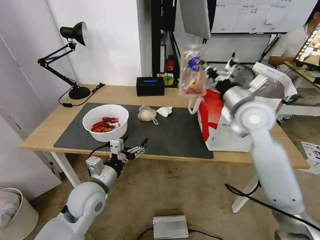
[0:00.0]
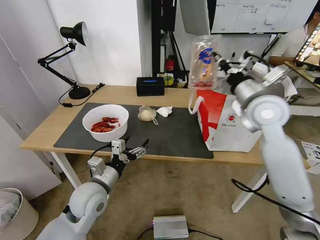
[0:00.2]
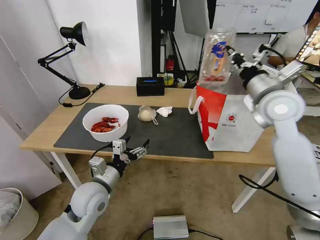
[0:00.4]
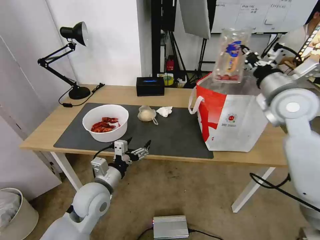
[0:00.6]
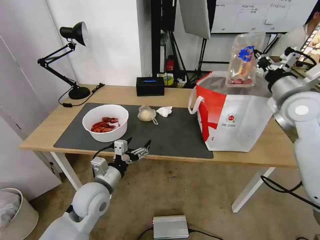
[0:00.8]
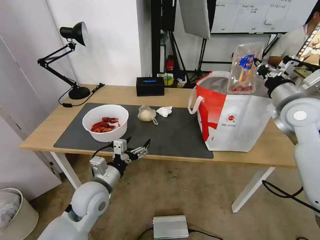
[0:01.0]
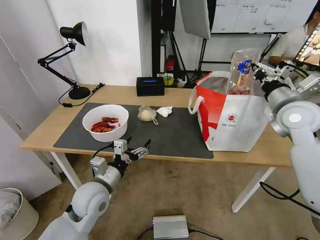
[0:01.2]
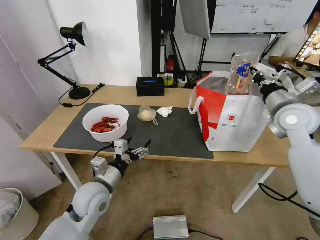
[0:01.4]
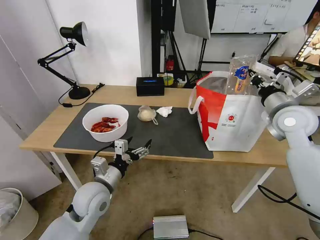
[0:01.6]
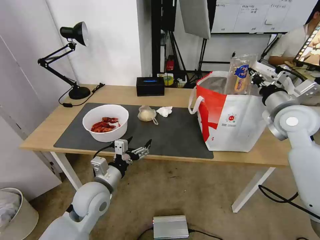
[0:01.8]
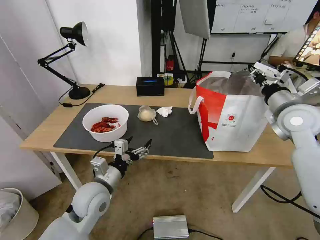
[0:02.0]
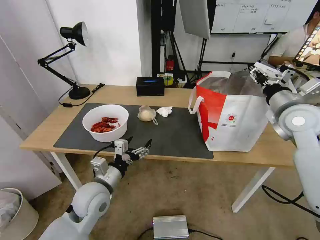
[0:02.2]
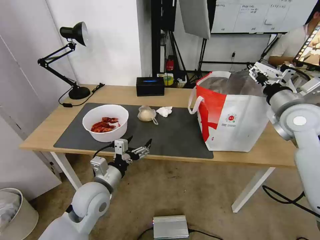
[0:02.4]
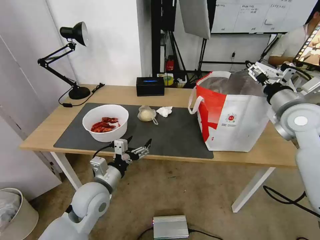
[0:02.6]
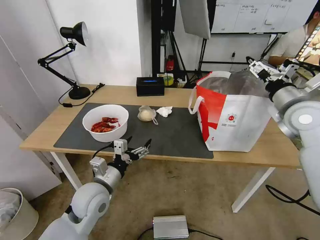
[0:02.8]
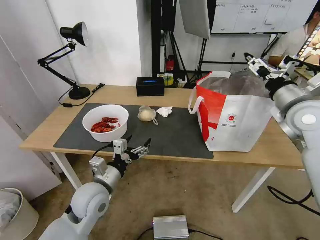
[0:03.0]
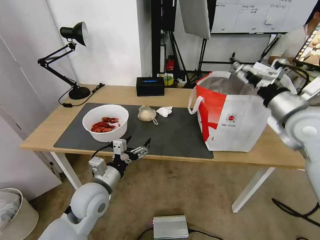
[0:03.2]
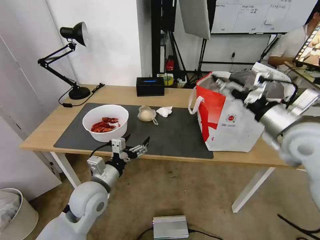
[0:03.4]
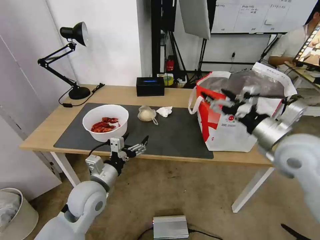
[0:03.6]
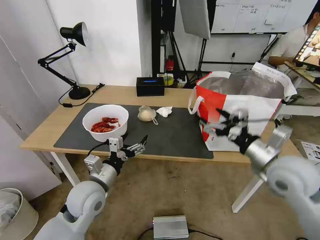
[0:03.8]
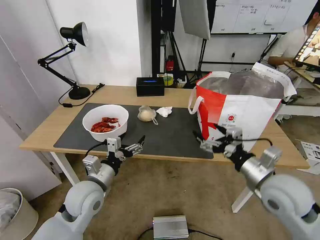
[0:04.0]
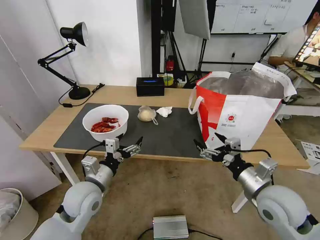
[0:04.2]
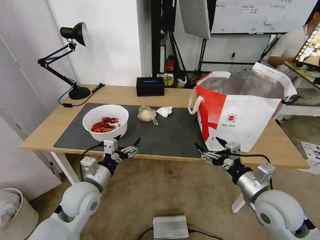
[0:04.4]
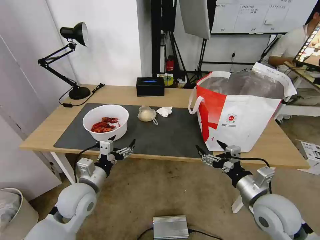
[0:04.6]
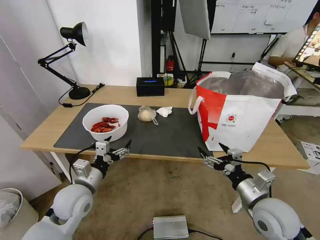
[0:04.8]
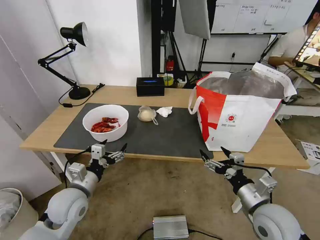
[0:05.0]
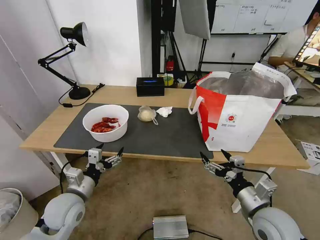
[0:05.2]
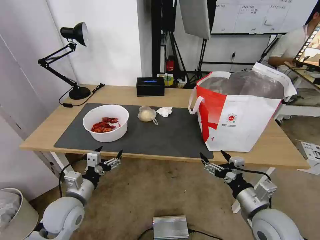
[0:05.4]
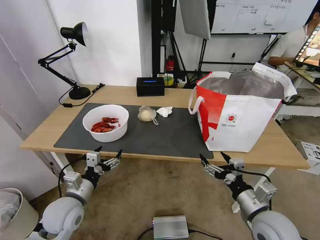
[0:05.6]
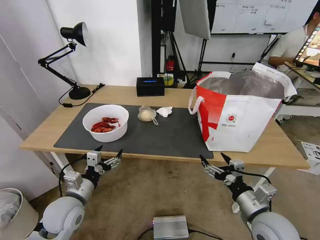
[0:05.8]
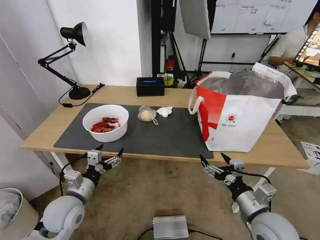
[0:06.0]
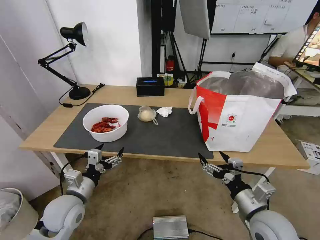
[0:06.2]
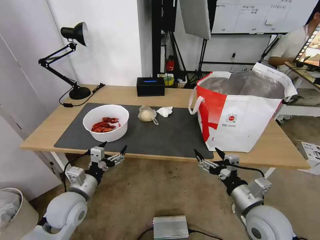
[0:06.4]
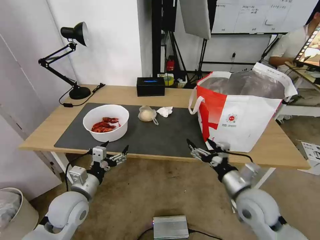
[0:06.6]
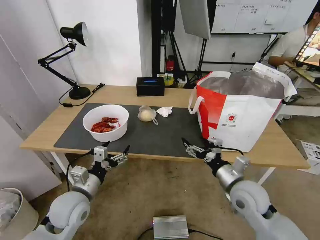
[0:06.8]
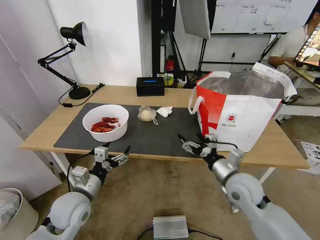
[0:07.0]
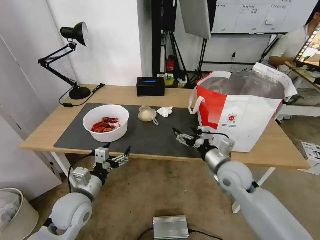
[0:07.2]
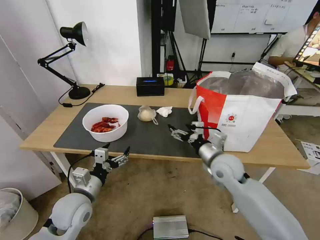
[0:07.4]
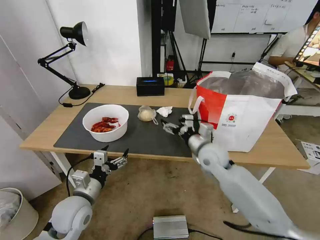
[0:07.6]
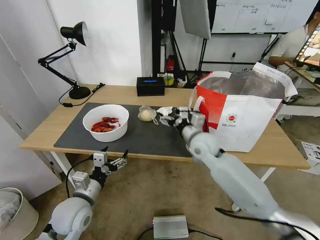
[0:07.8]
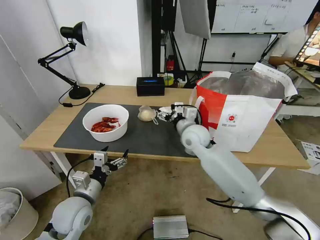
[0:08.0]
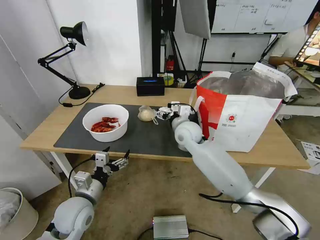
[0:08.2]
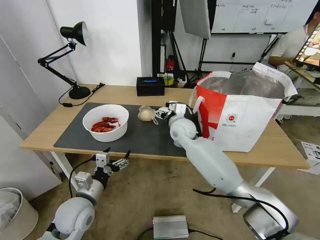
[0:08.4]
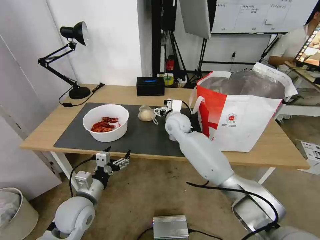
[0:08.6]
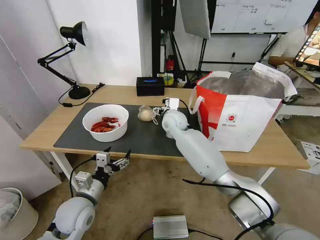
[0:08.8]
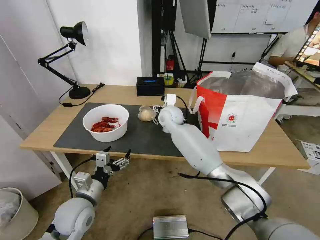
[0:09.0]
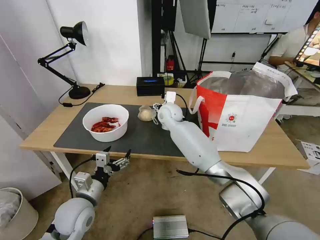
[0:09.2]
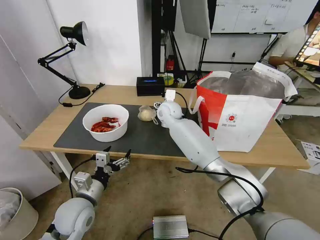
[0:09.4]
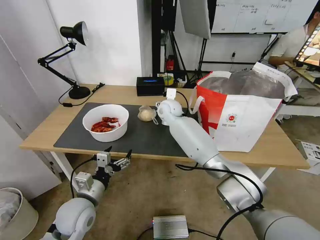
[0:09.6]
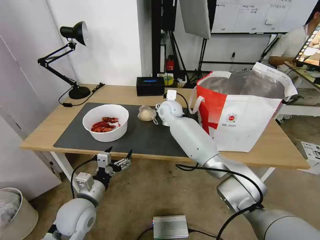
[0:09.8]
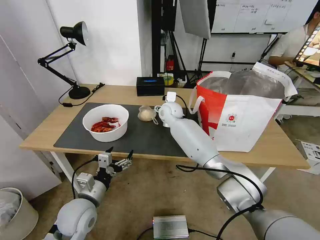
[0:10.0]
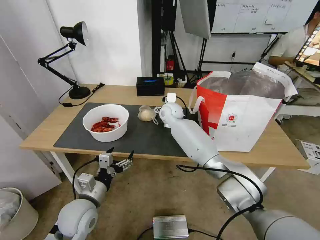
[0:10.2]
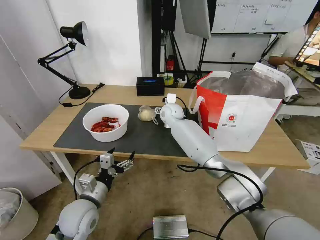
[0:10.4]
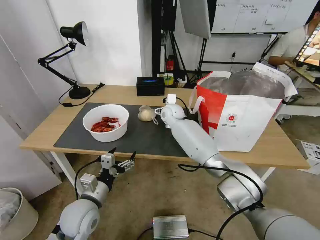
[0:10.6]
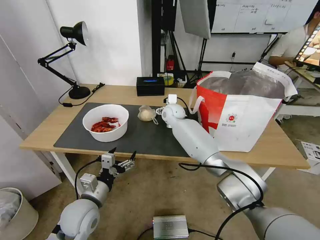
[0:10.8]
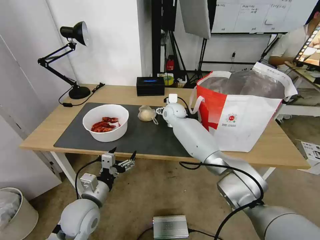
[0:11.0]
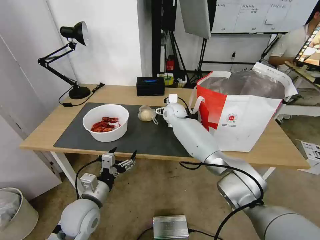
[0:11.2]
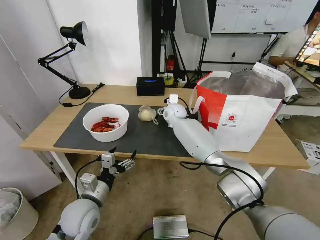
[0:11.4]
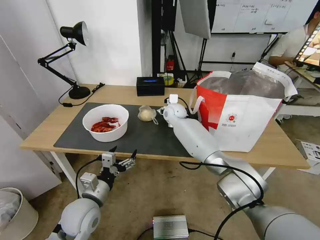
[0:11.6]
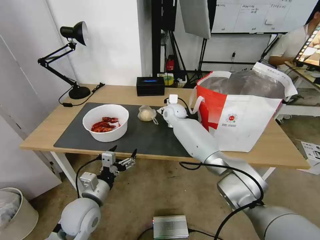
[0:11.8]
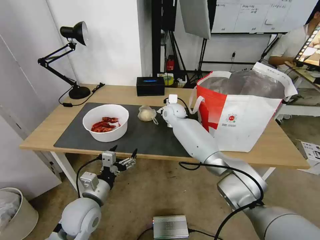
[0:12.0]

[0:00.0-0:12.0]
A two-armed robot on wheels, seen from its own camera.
Task of the whole recording: Pick up the trash from the table and place it into the takeout bag.
0:00.0 to 0:01.6: The right gripper is displaced to the right by about 10 cm.
0:01.6 to 0:03.0: The right gripper opens.
0:03.0 to 0:04.4: The right gripper moves downward, backward and to the left, about 25 cm.
0:04.4 to 0:06.0: The left gripper changes place by some 5 cm; the right gripper moves some 5 cm.
0:06.0 to 0:07.6: The right gripper heads forward and to the left, covering some 25 cm.
0:07.6 to 0:09.0: The right gripper goes about 20 cm forward and to the left.
0:09.0 to 0:10.4: The grippers move only a little.
0:10.4 to 0:12.0: The right gripper closes its fingers.

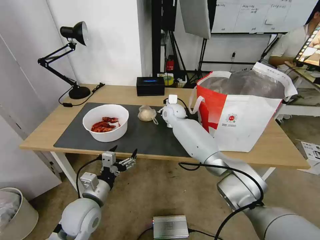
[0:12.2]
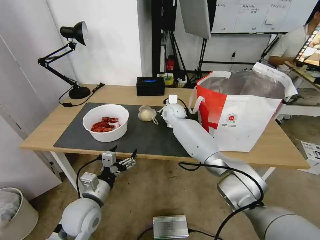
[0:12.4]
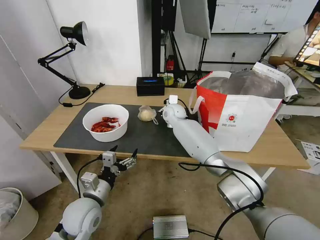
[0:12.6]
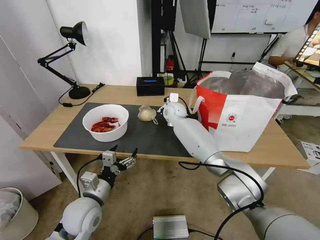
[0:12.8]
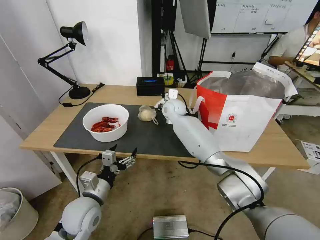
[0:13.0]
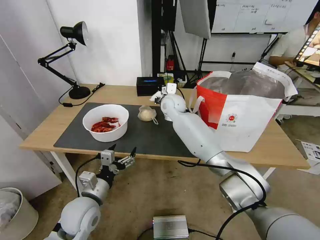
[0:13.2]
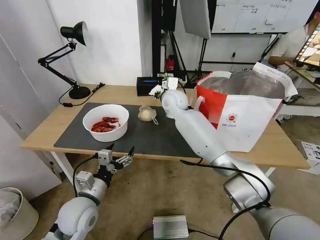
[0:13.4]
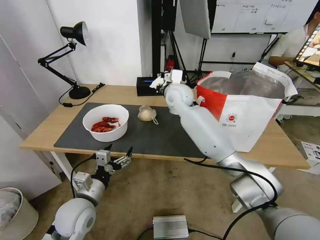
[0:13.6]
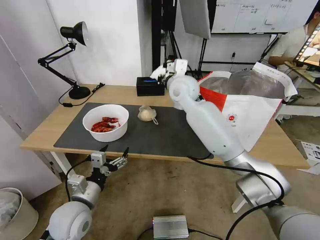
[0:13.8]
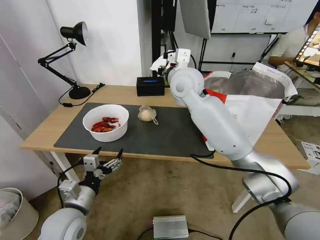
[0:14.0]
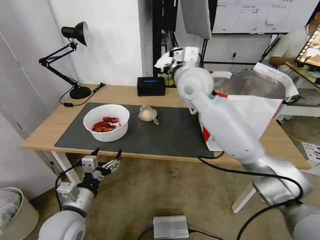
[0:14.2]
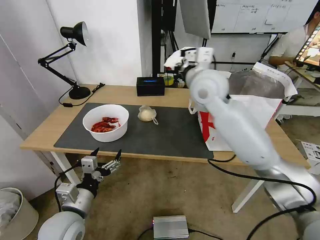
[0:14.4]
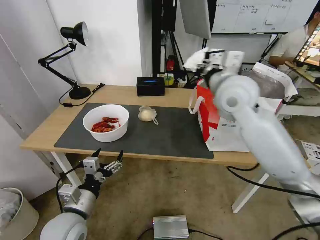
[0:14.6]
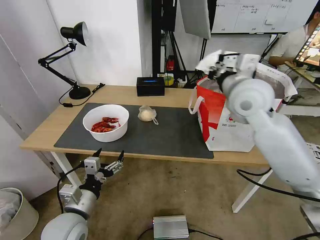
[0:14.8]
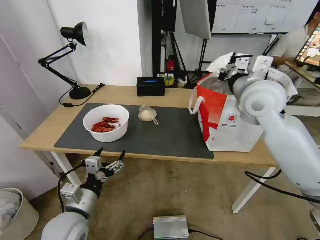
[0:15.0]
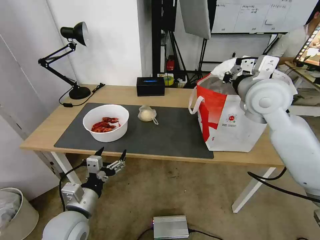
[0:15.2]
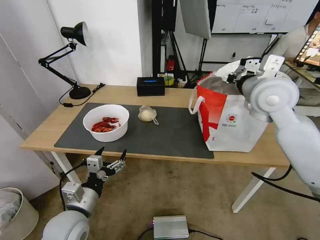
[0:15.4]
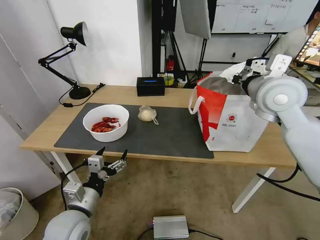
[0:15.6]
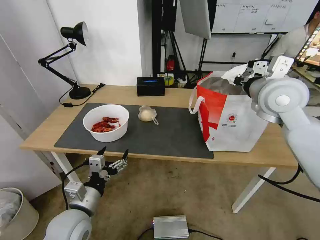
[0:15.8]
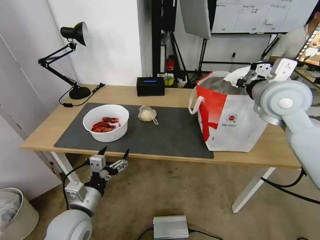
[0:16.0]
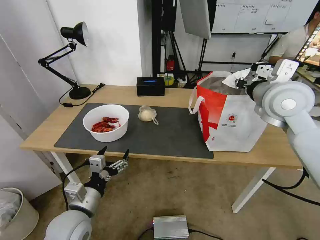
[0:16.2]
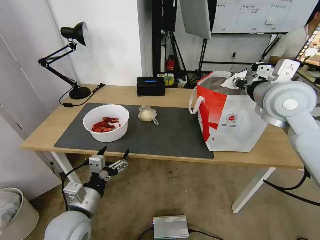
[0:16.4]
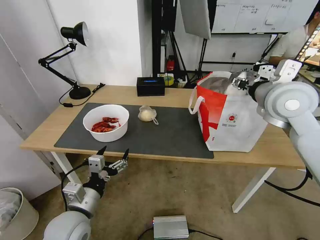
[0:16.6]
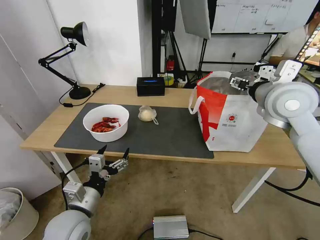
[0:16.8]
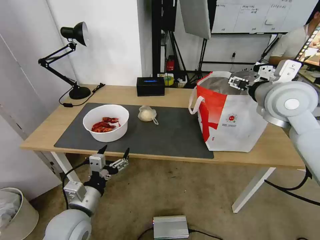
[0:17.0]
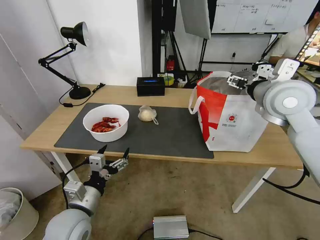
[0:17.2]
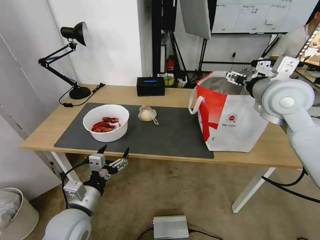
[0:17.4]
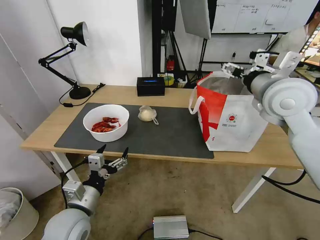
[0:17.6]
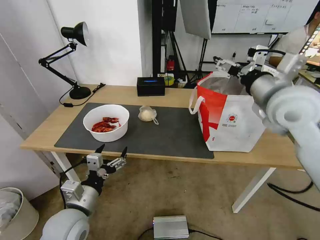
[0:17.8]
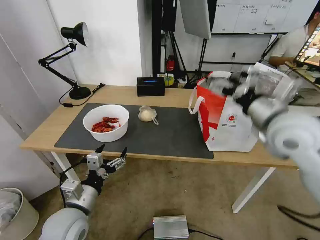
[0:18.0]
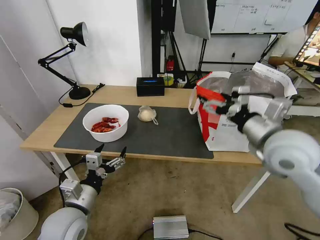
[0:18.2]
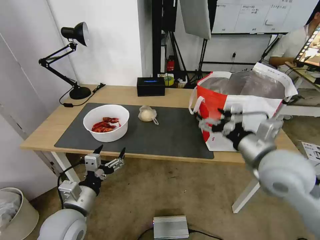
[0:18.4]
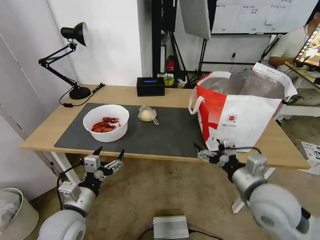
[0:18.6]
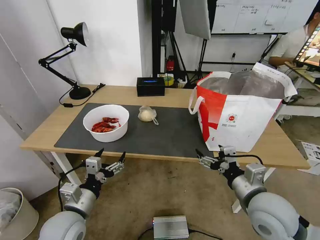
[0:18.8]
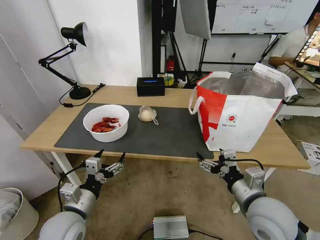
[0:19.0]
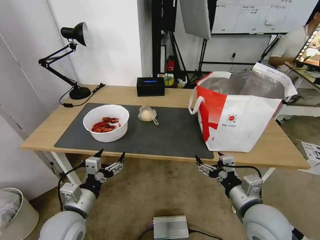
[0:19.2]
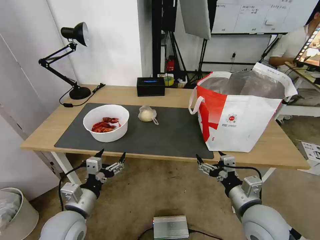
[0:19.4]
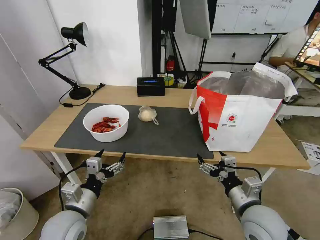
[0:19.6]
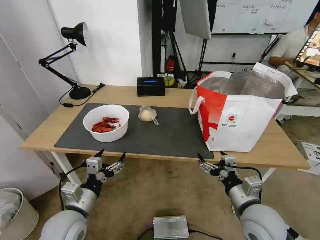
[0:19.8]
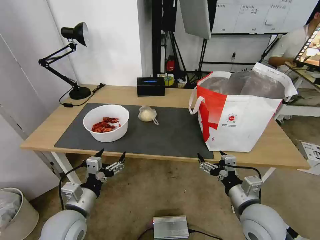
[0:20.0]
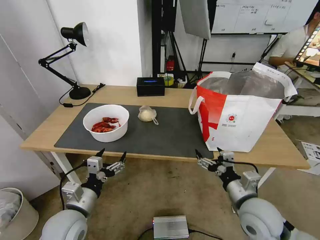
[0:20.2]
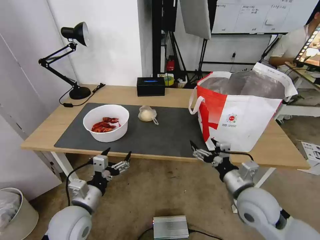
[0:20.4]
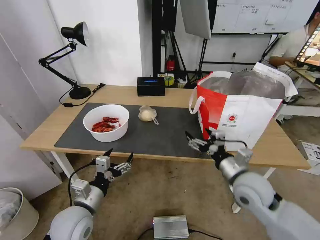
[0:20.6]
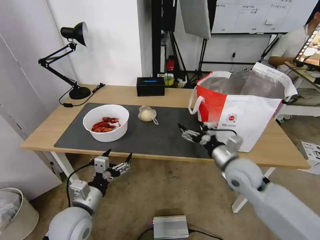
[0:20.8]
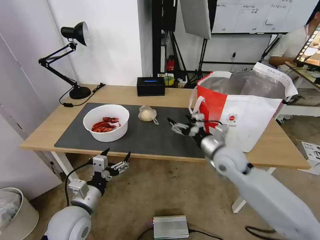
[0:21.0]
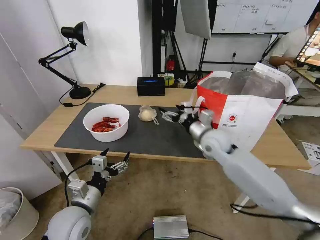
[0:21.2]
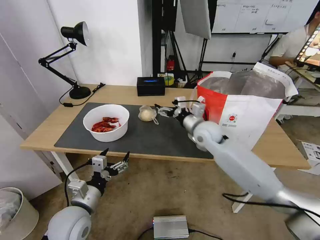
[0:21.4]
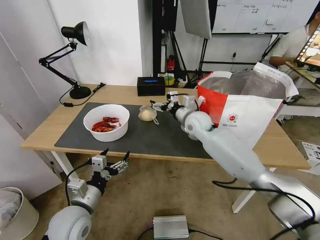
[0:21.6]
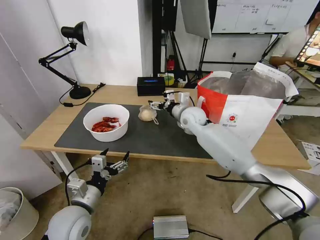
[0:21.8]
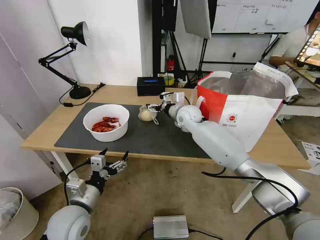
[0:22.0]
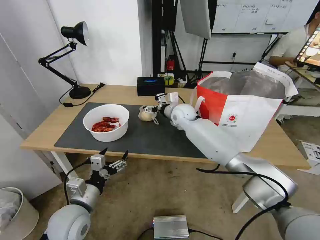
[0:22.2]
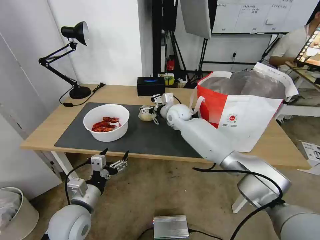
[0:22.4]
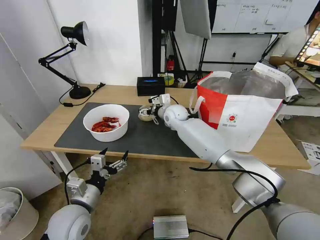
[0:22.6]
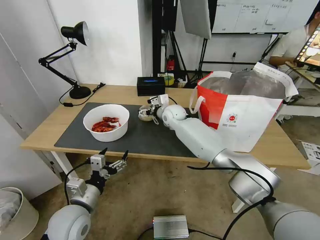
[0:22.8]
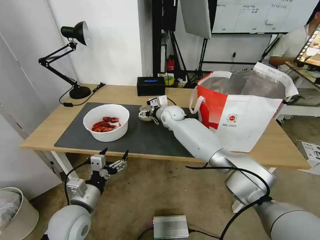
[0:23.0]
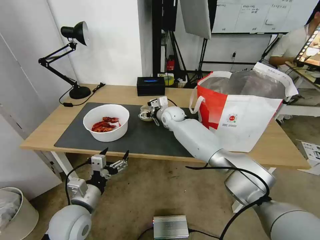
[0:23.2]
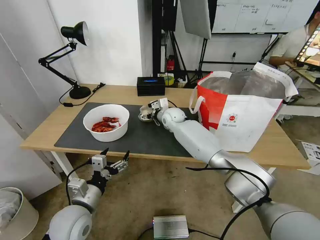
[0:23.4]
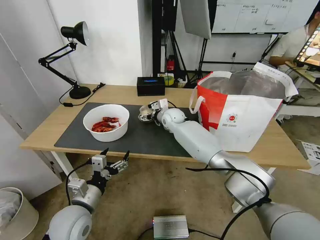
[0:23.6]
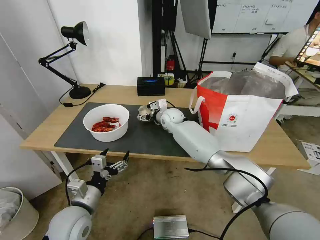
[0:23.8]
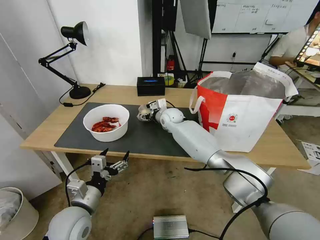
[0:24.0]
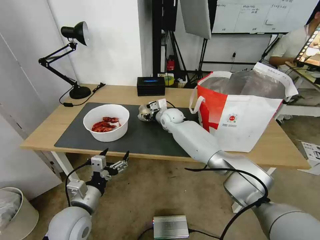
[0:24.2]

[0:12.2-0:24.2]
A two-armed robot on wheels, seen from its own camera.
Task of the whole recording: Pick up the trash from the table and place it into the takeout bag.
0:12.2 to 0:13.8: The right gripper travels upward and backward by approximately 20 cm.
0:13.8 to 0:15.2: The right gripper travels to the right and backward by about 20 cm.
0:15.2 to 0:16.6: The right gripper opens up.
0:16.6 to 0:18.2: The right gripper moves backward and downward, about 15 cm, and opens.
0:18.2 to 0:19.8: The right gripper moves downward and backward, approximately 20 cm.
0:19.8 to 0:21.2: The right gripper heads forward, covering some 25 cm.
0:21.2 to 0:22.6: The right gripper heads forward and to the left, covering roughly 20 cm.
0:22.6 to 0:24.2: The right gripper closes its fingers.
